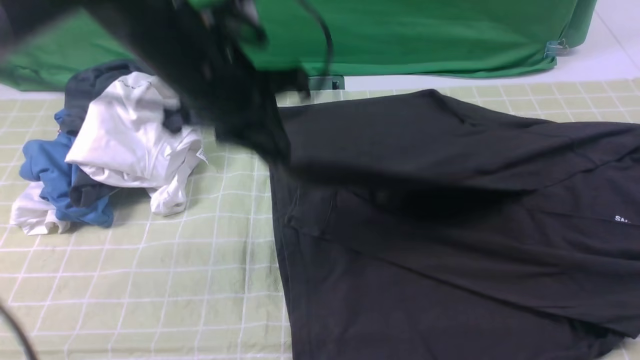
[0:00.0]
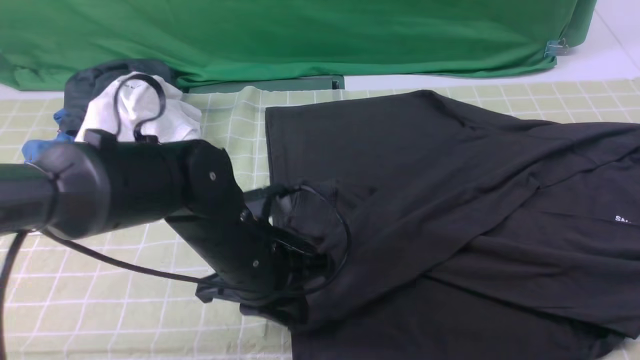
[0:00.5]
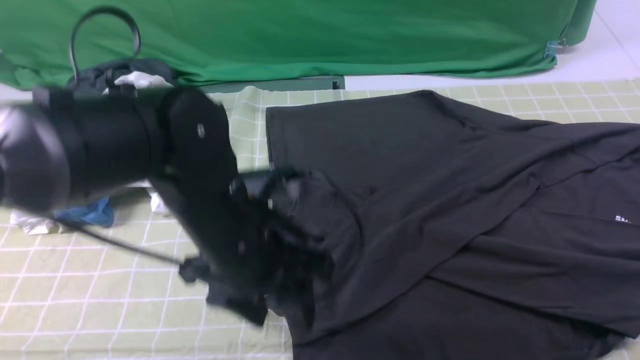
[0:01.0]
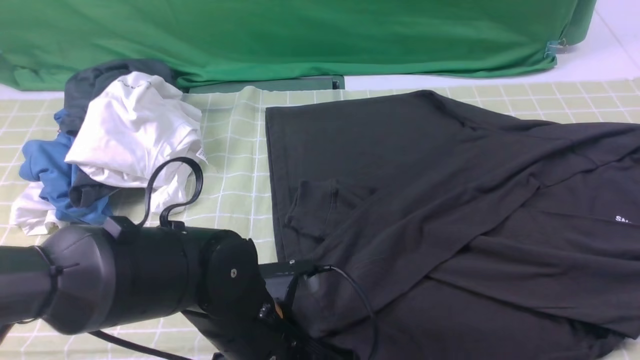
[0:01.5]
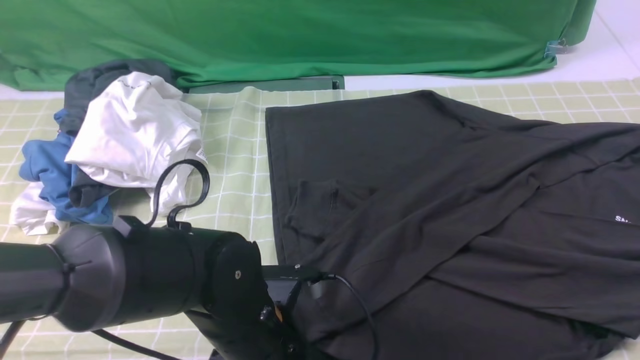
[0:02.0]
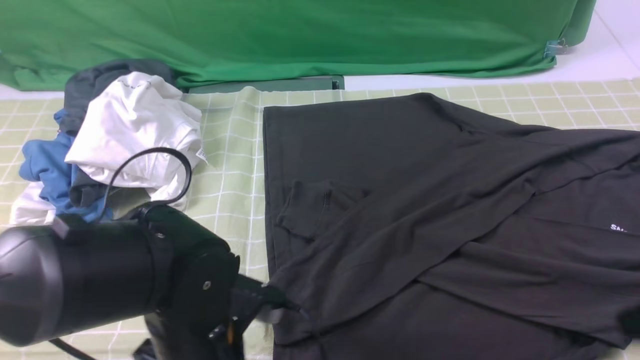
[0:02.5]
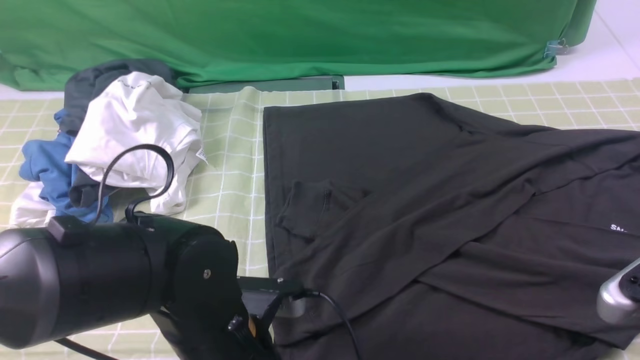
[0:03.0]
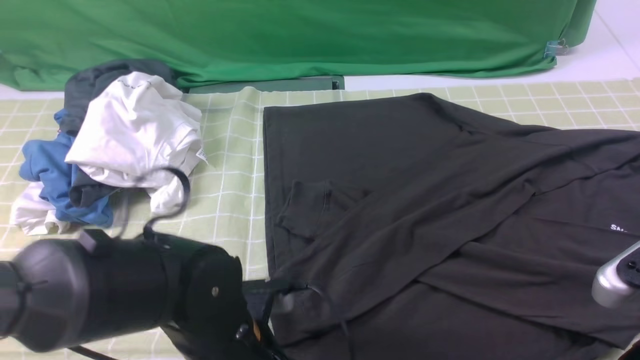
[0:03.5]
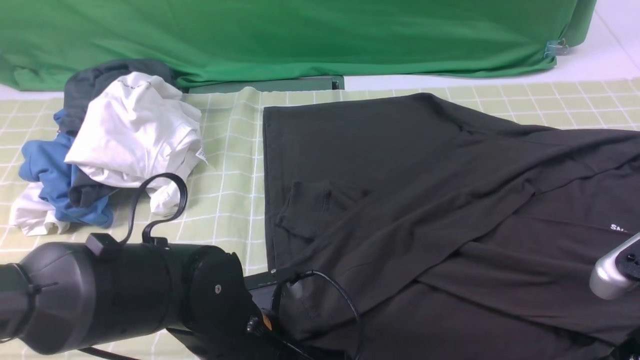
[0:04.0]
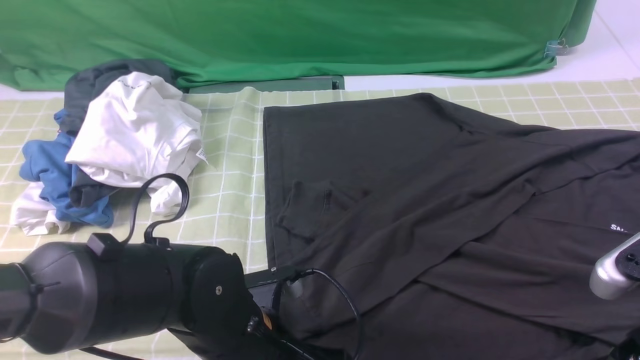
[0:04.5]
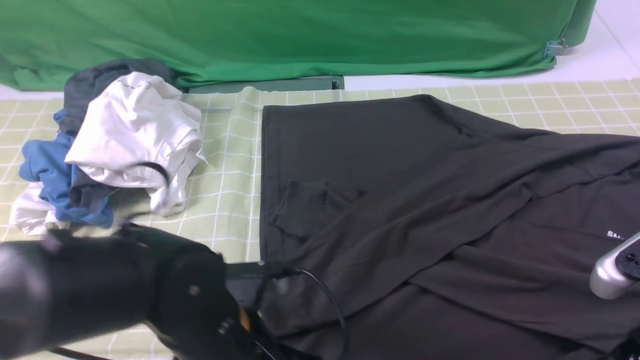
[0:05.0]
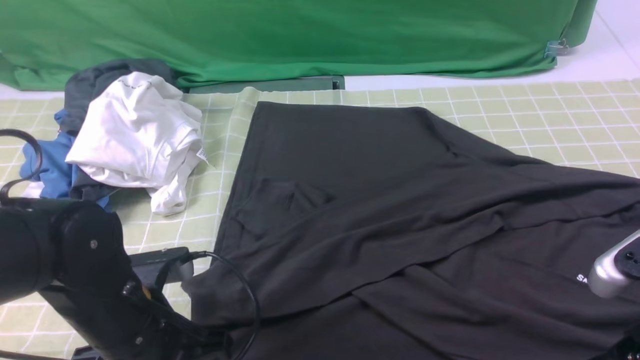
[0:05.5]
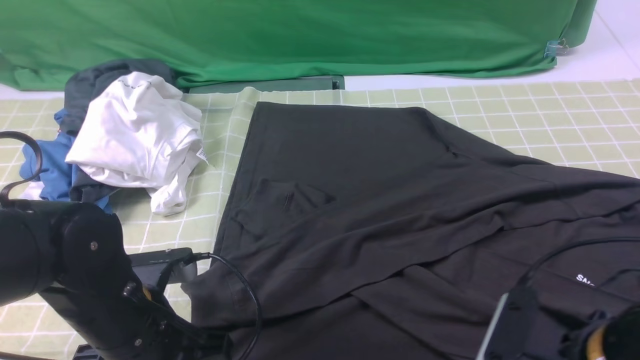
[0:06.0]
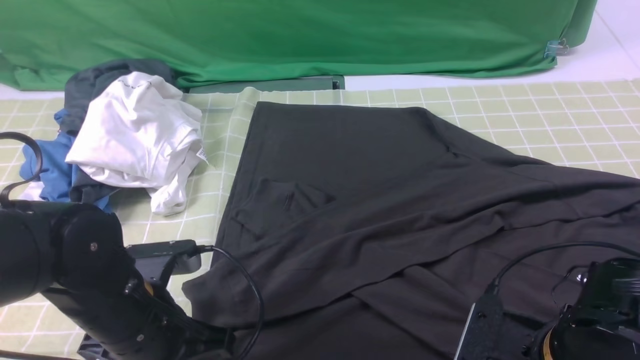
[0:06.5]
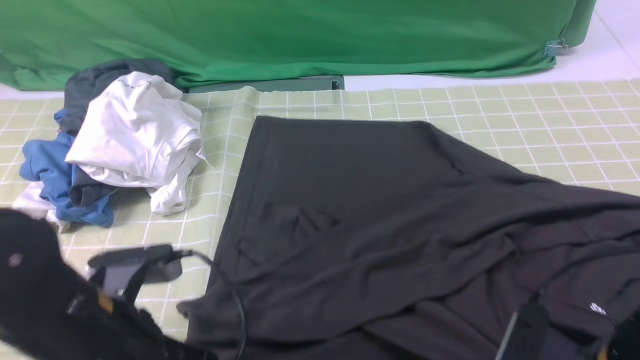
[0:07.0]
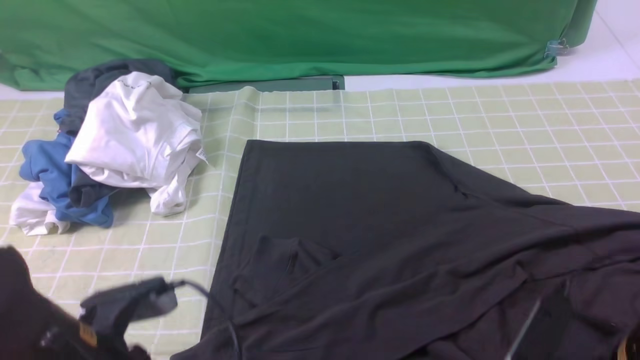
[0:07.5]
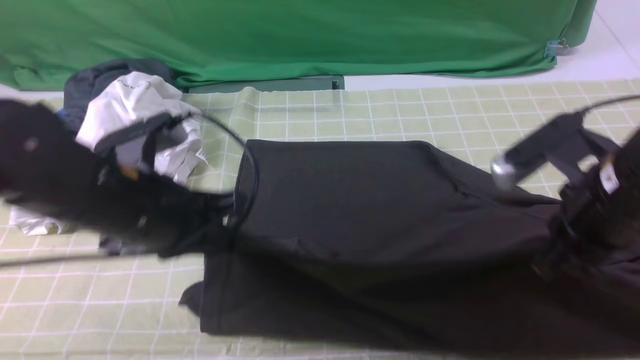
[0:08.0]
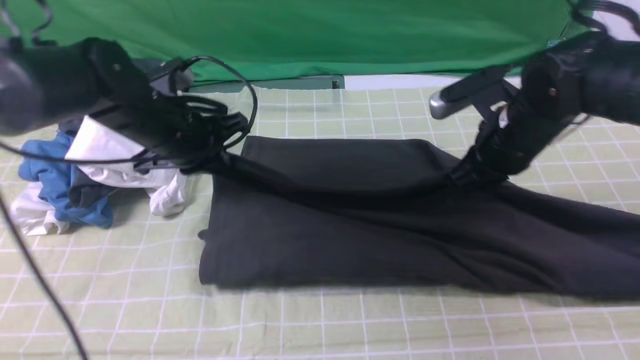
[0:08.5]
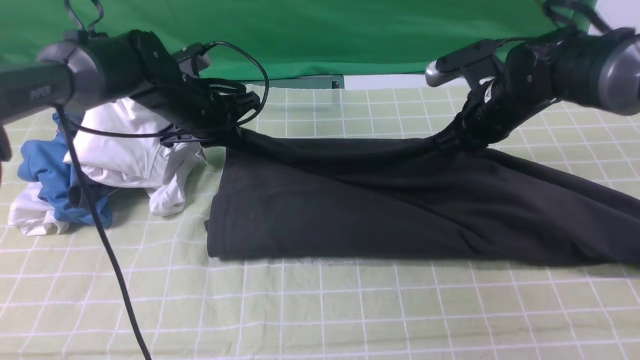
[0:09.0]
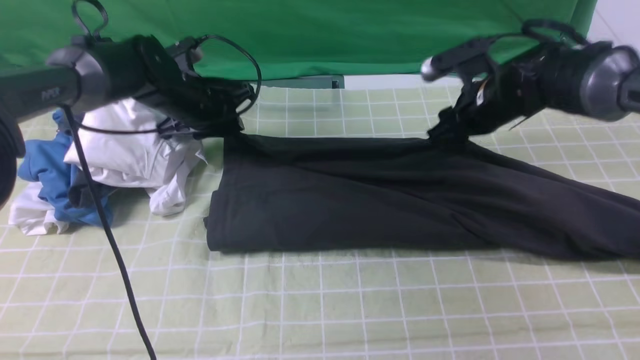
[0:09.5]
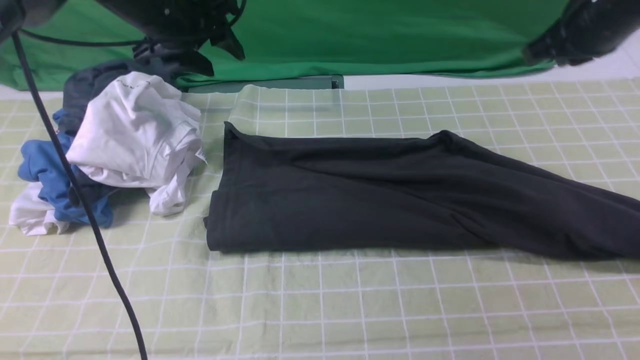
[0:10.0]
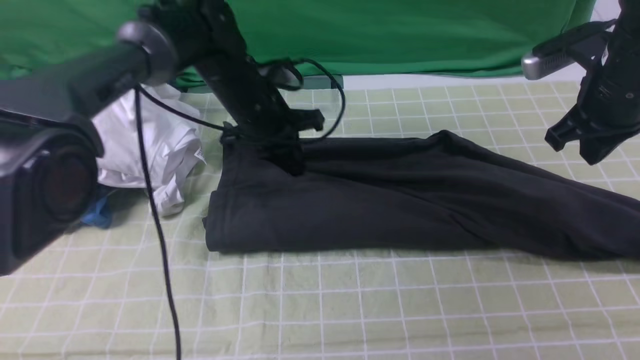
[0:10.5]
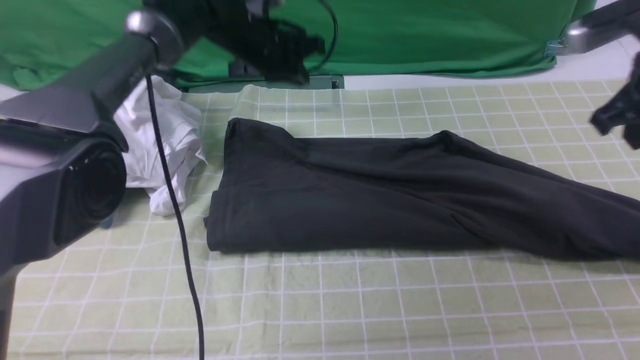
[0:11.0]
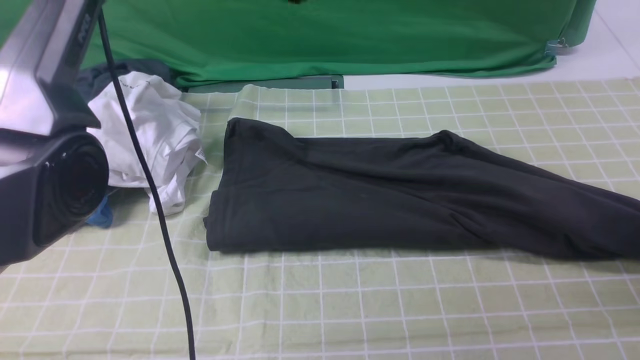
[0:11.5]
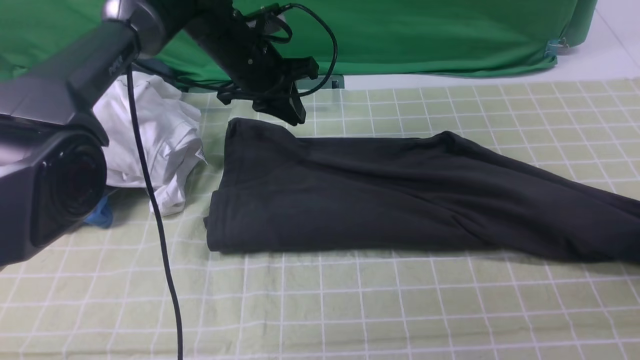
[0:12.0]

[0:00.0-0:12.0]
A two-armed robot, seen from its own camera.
Step, 0:01.0 to 0:06.0: use both arms simultaneously to clamp the lower edge of the clothing fabric.
Step, 0:07.0 to 0:09.5: use both arms to drag the lower edge of the fabric forward and fold it over the upper edge.
0:00.0 to 0:02.0: The left gripper shifts approximately 20 cm backward and downward, and opens, then closes once more.
0:02.0 to 0:04.0: The right gripper goes some 10 cm downward, and opens, while the left gripper opens its fingers.
0:04.0 to 0:06.0: The left gripper moves to the left, about 10 cm, and closes; the right gripper heads to the left and downward, covering approximately 10 cm.
0:06.0 to 0:08.0: The right gripper goes about 15 cm forward and upward, and closes its fingers. The left gripper heads upward and forward, covering some 10 cm.
0:08.0 to 0:10.0: Both grippers move forward, roughly 20 cm. The right gripper opens and closes again, while the left gripper opens.
0:10.0 to 0:12.0: The left gripper moves up and down over some 15 cm, changing direction 2 times, and closes its fingers; the right gripper is displaced to the right and downward by roughly 20 cm.

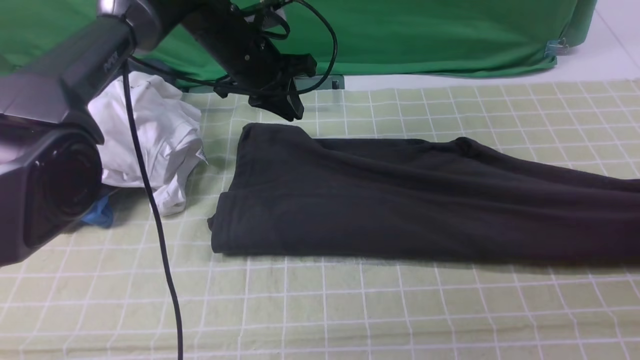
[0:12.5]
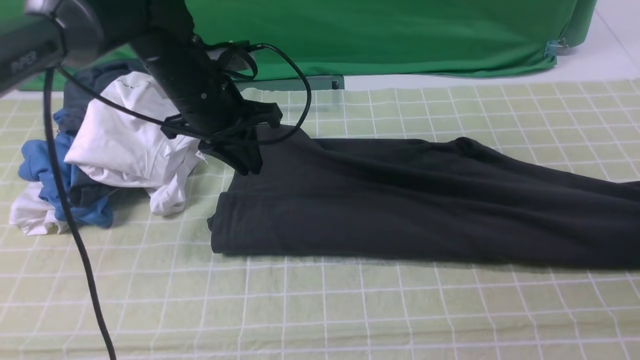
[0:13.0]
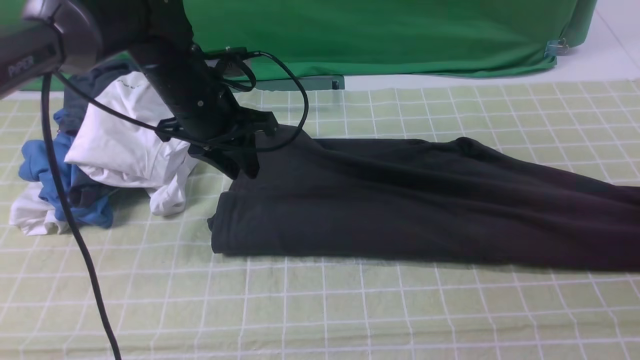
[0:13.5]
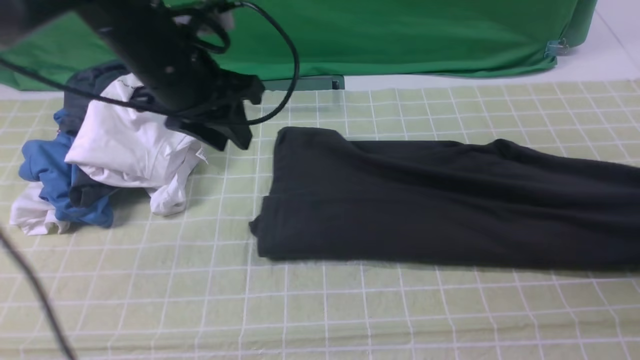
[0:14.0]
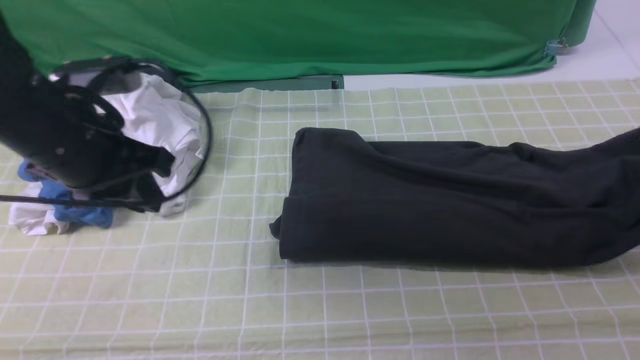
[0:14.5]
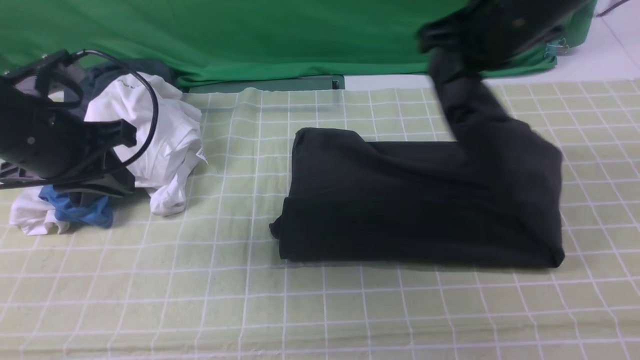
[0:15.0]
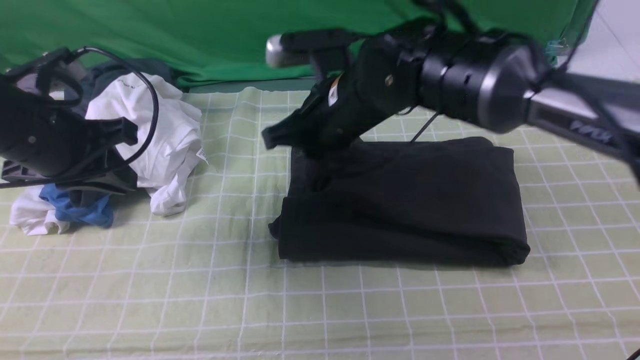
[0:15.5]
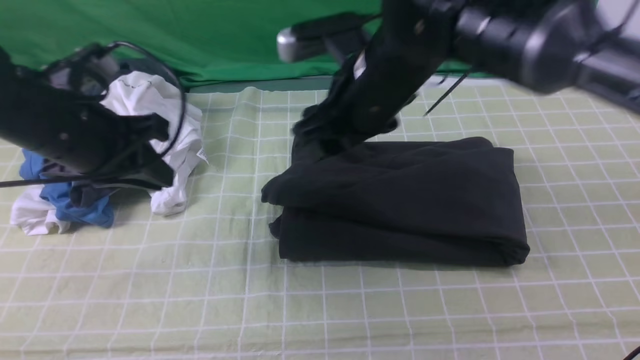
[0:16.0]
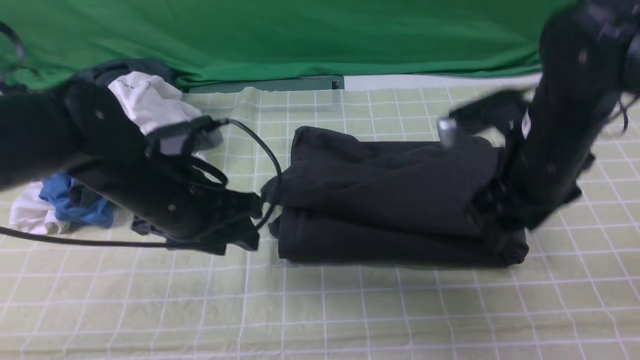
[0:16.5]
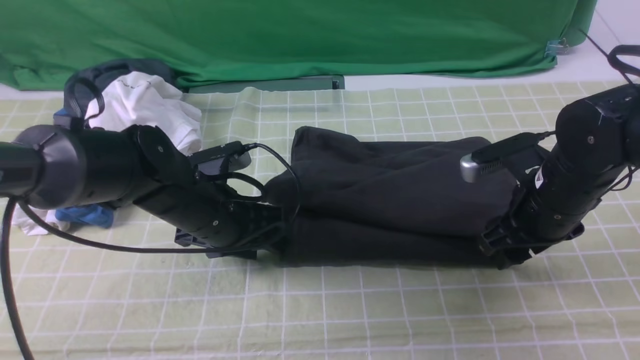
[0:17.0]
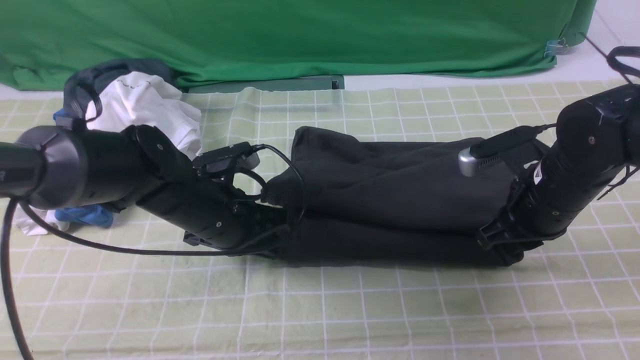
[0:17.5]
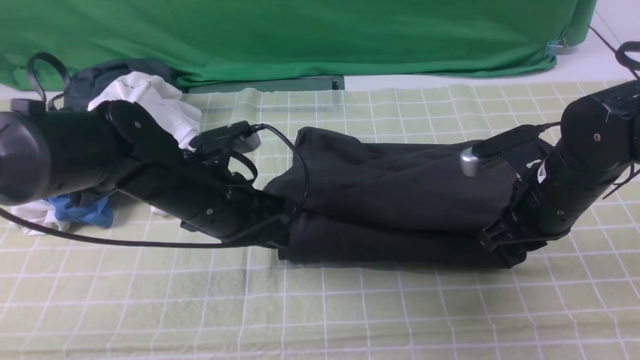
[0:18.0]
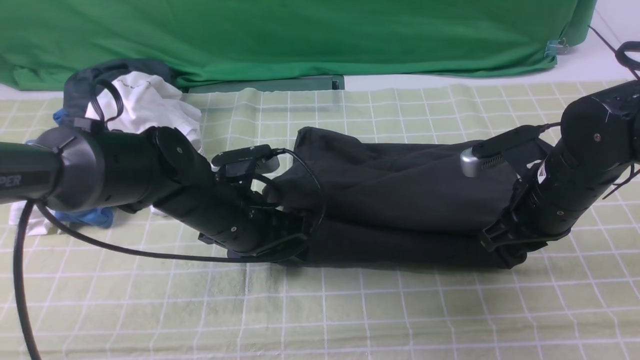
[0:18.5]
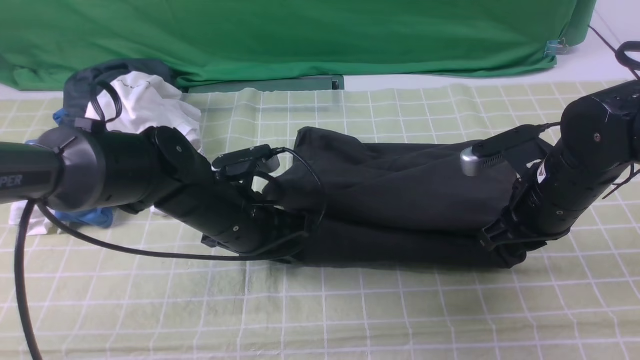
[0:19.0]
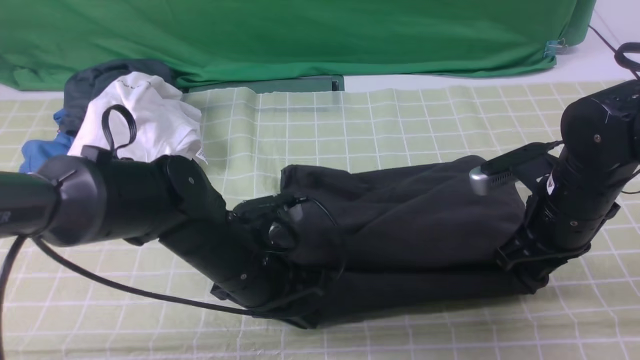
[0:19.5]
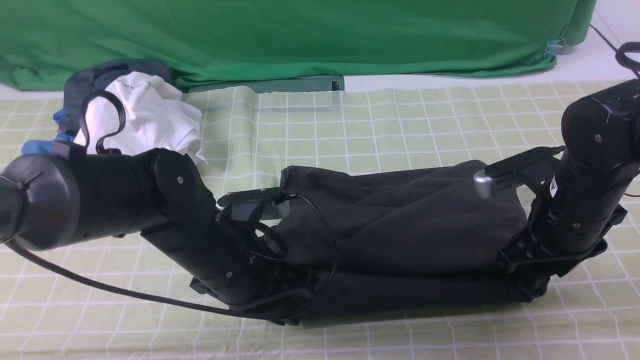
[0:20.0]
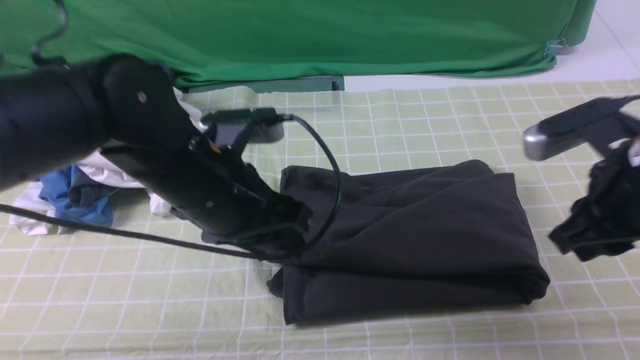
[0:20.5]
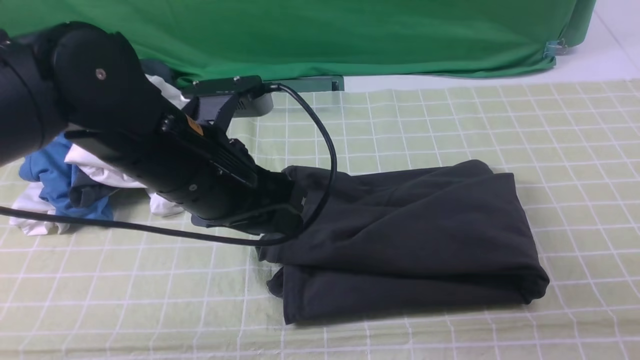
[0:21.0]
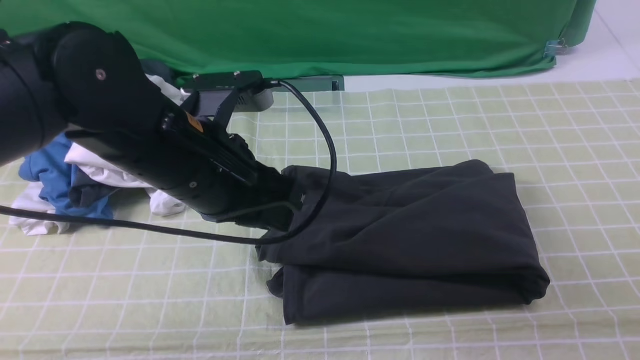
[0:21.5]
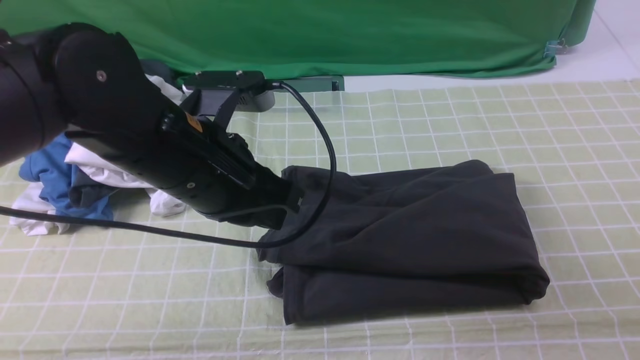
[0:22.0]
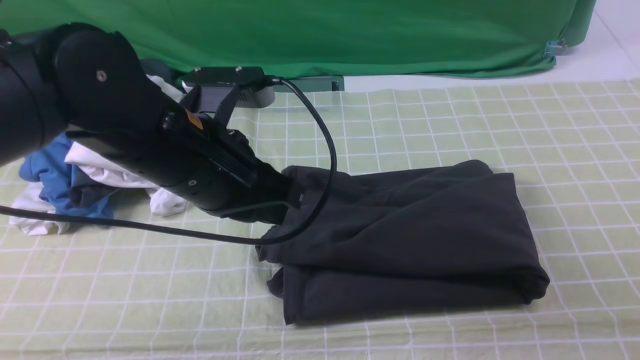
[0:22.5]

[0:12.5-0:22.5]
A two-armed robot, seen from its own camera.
Step, 0:13.0 to 0:15.5: use the right arm to drag the right edge of the fabric to the left and folds it over the left edge.
0:12.5 to 0:14.5: The left gripper travels backward and to the left by approximately 20 cm. The right gripper travels upward and to the left by about 15 cm, and opens, then closes again.
0:14.5 to 0:16.5: The right gripper shifts approximately 25 cm to the left and downward, and opens its fingers. The left gripper moves downward and to the right, roughly 10 cm, and opens.
0:16.5 to 0:18.5: Both grippers travel together downward, some 5 cm. The right gripper closes its fingers. Meanwhile the left gripper closes, then reopens.
0:18.5 to 0:20.5: The right gripper shifts roughly 10 cm upward and backward, while the left gripper moves upward, about 10 cm, and closes, then opens again.
0:20.5 to 0:22.5: The right gripper heads backward and to the right, covering some 20 cm; the left gripper closes up.
